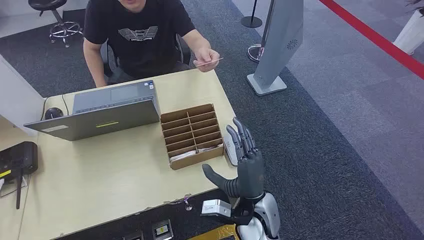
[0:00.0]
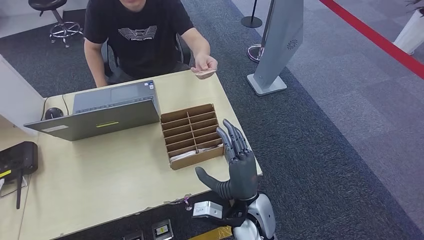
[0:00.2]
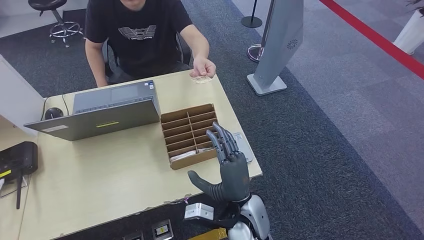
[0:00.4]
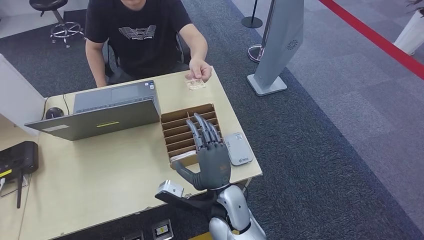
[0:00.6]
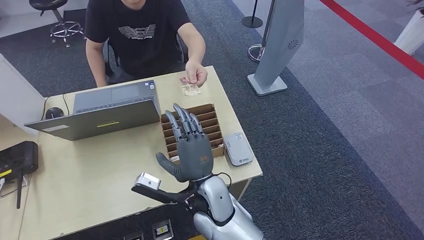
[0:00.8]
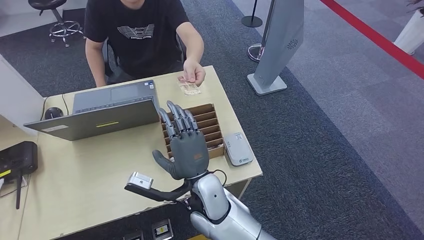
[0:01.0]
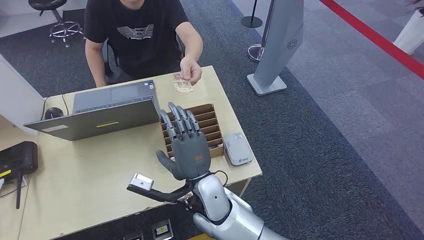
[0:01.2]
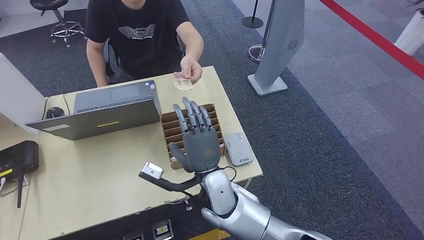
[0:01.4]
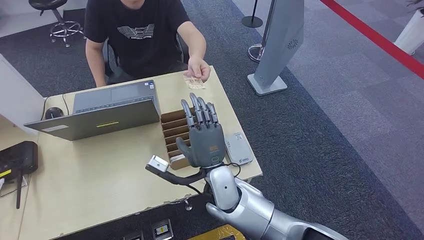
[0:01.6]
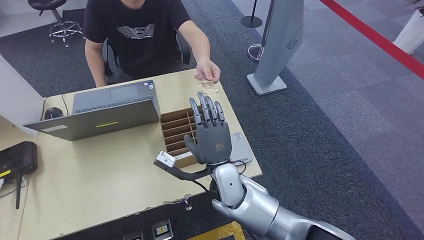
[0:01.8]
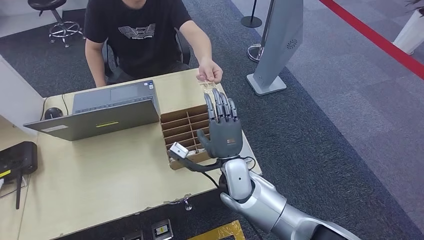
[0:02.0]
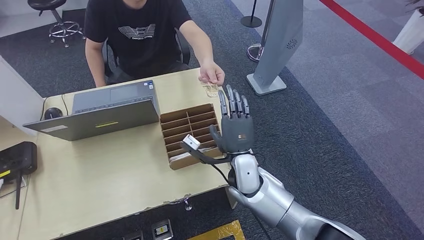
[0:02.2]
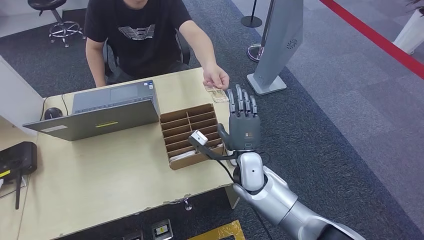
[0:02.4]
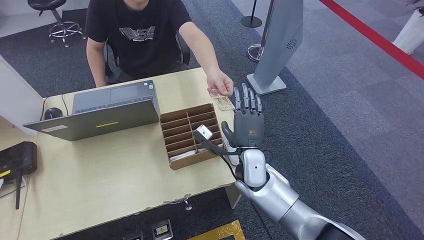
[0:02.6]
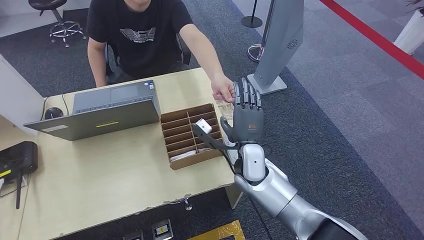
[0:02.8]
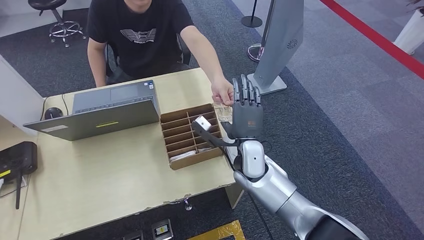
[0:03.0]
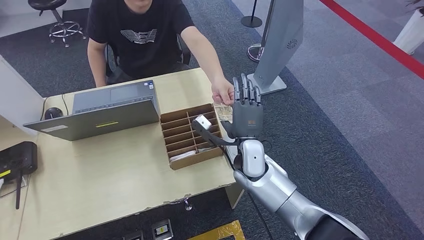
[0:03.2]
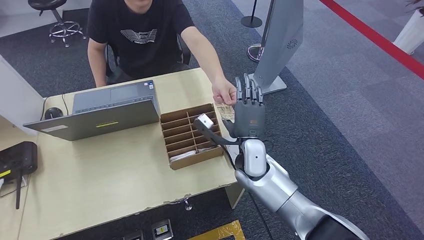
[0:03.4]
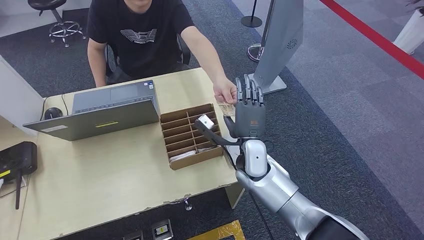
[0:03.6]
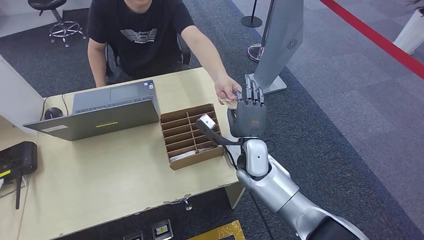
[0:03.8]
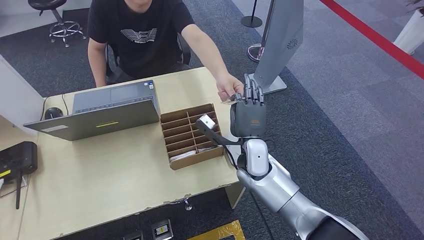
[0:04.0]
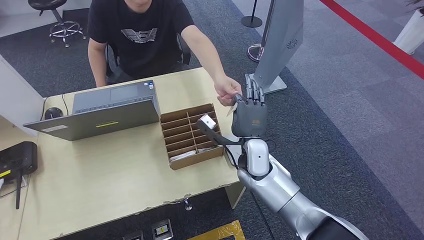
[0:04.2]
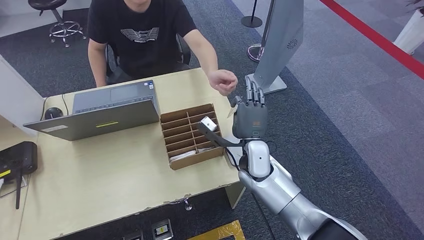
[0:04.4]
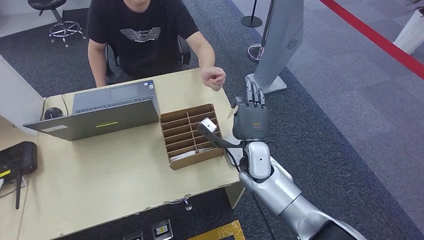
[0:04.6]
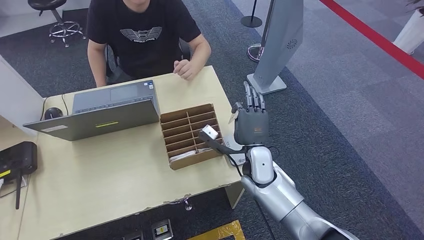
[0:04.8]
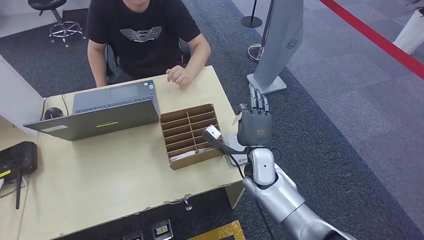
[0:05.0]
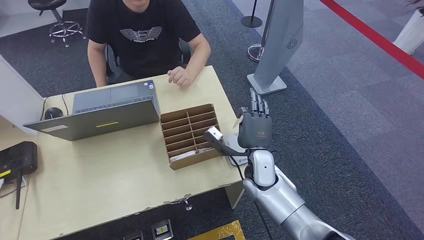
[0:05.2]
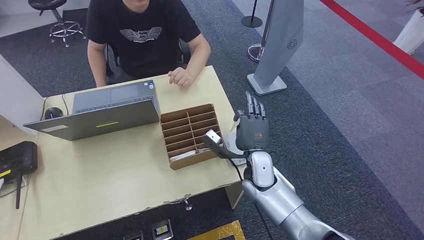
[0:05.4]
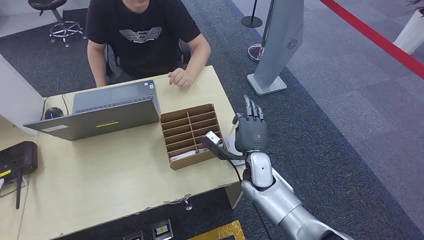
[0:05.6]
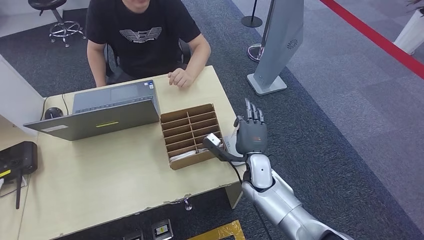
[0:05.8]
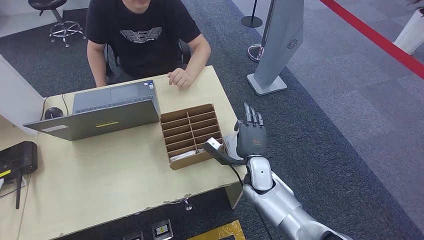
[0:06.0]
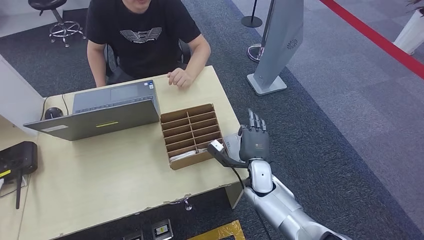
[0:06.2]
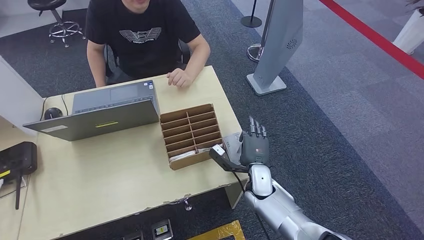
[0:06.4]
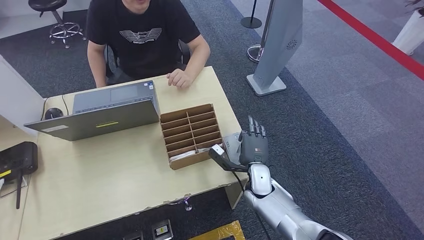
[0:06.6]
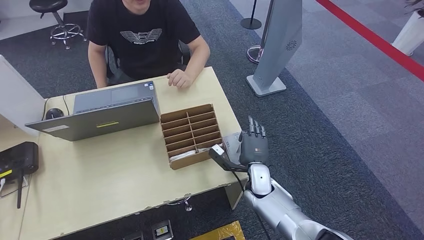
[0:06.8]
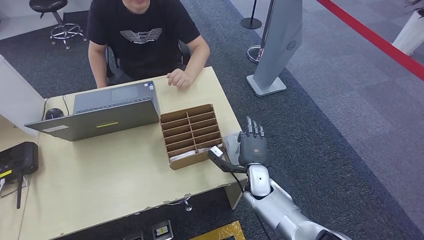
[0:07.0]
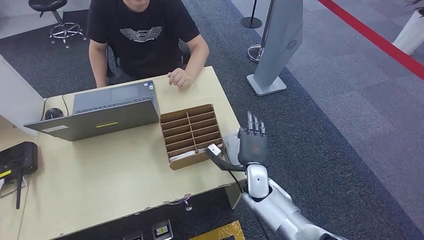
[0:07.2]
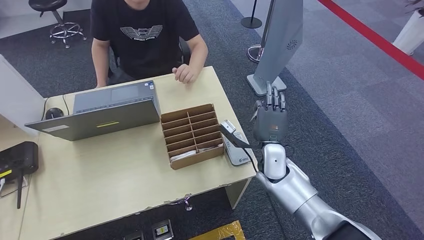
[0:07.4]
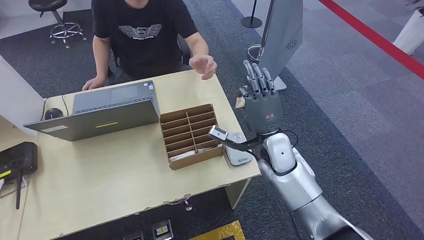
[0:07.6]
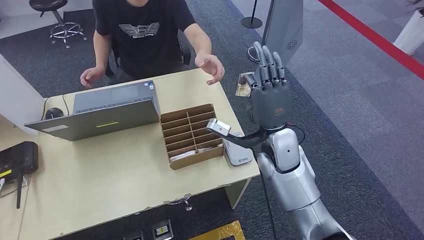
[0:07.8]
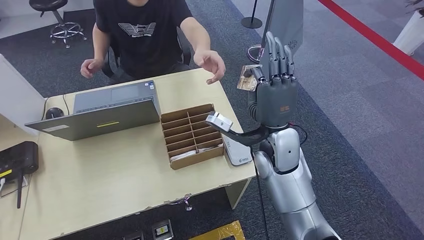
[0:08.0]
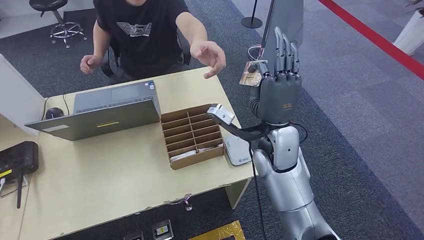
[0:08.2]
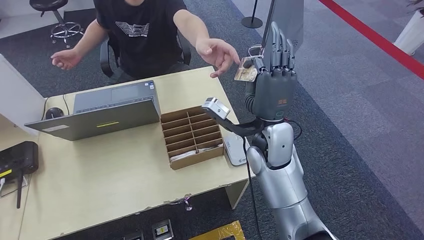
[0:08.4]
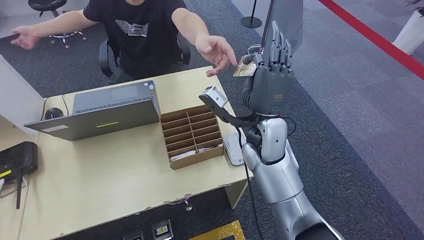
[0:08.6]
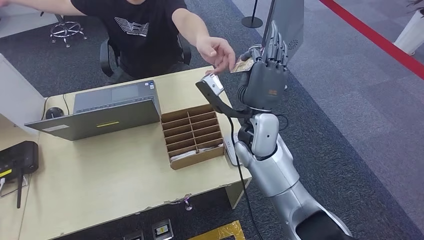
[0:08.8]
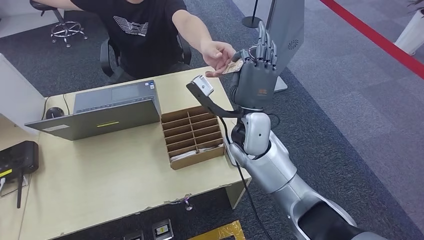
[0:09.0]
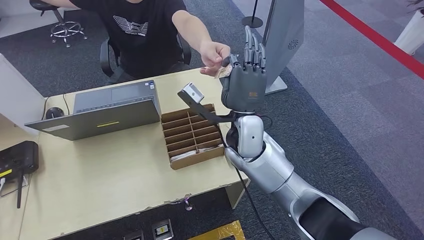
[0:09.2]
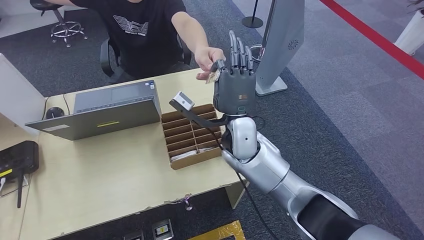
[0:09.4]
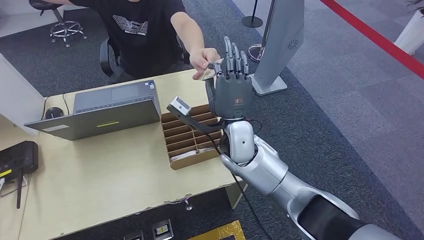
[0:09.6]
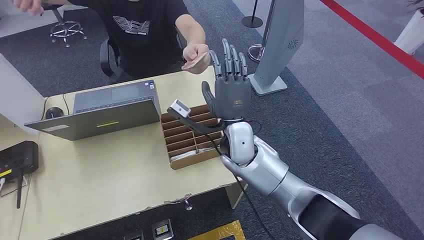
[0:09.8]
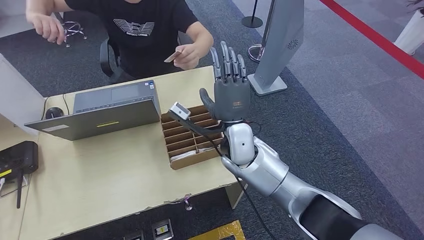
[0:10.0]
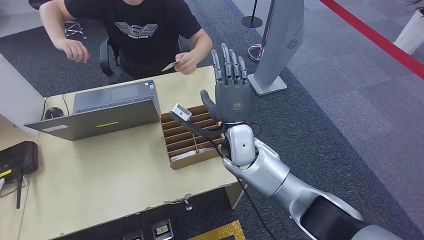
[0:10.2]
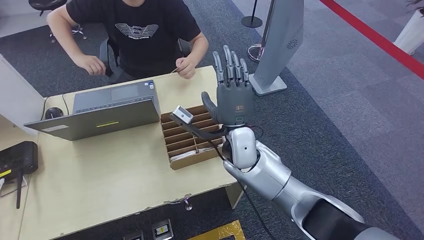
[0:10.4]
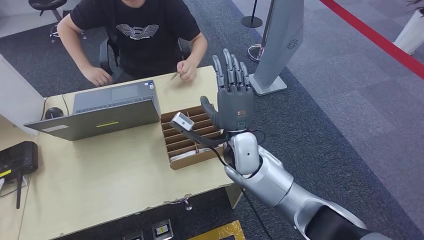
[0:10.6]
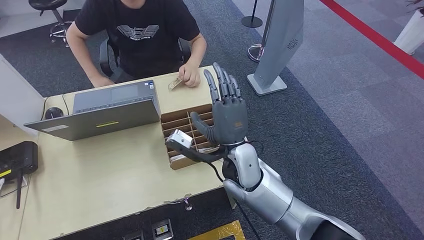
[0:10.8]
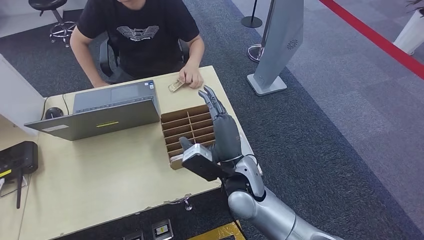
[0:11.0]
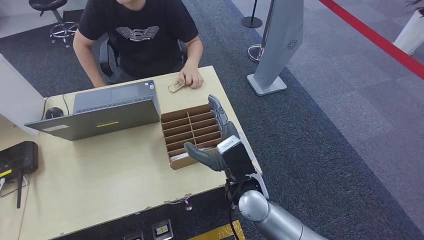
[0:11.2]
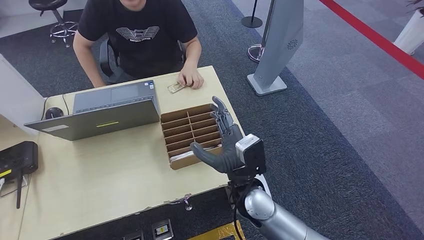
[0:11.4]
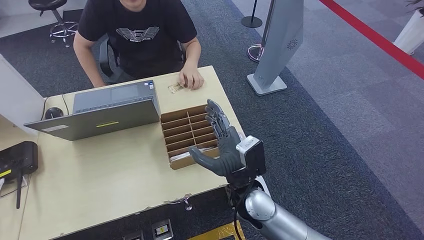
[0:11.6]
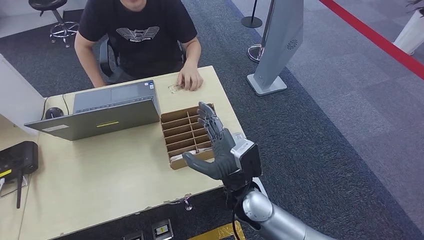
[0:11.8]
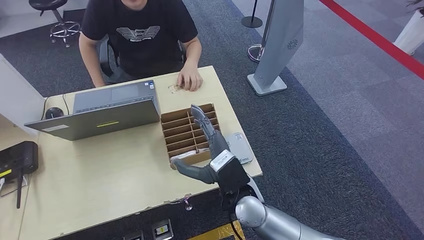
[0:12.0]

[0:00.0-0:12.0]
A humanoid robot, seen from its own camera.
Step, 0:00.0 to 0:04.4: Take the ID card from the person's hand.
Step, 0:04.6 to 0:06.4: Place the ID card on the card reader.
Step, 0:06.6 to 0:11.0: Hand the ID card to the person.
0:01.6 to 0:03.0: The right hand goes some 10 cm to the right and forward.
0:03.0 to 0:04.4: There are only small adjustments of the hands.
0:04.4 to 0:06.0: The right hand heads downward, covering some 5 cm.
0:06.0 to 0:07.6: The right hand moves upward, some 10 cm.
0:07.6 to 0:09.0: The right hand moves to the left and upward, some 10 cm.
0:09.0 to 0:10.4: The right hand shifts by roughly 5 cm.
0:10.4 to 0:12.0: The right hand goes approximately 10 cm backward.

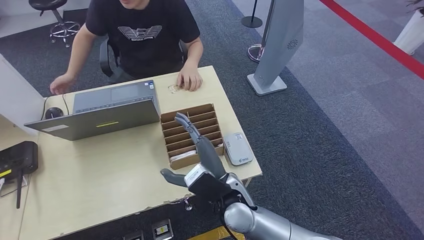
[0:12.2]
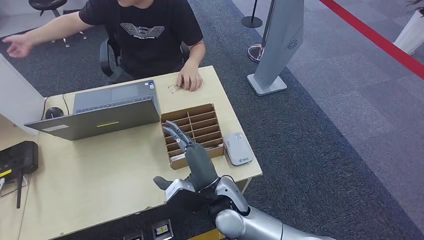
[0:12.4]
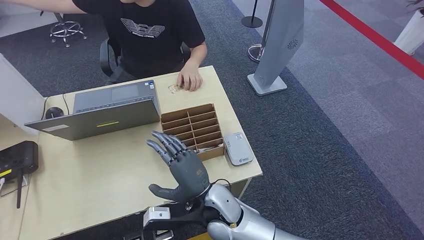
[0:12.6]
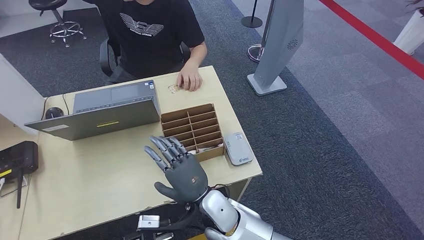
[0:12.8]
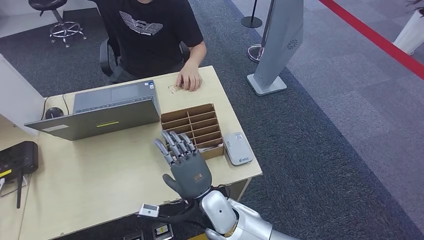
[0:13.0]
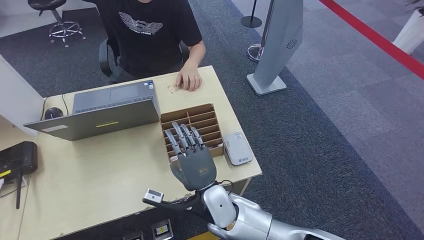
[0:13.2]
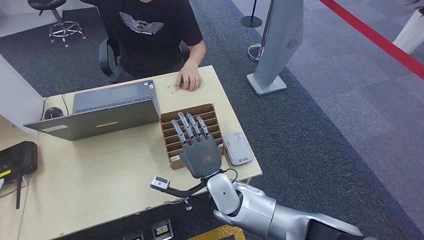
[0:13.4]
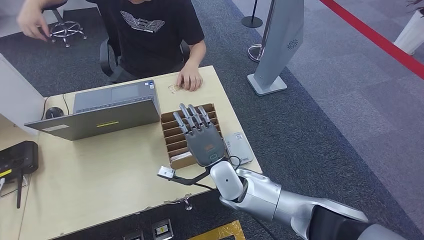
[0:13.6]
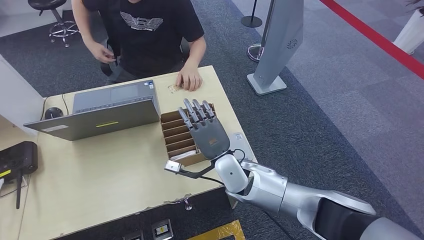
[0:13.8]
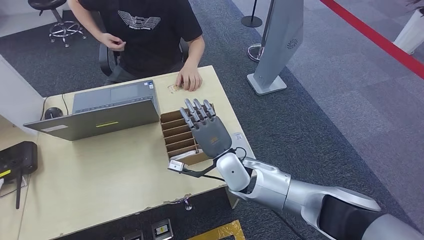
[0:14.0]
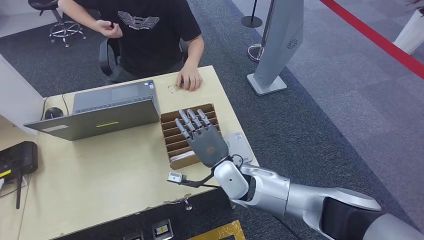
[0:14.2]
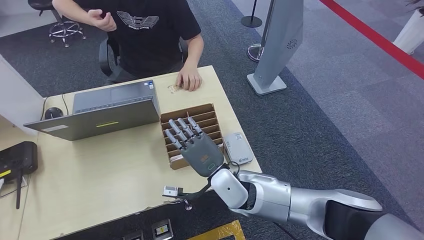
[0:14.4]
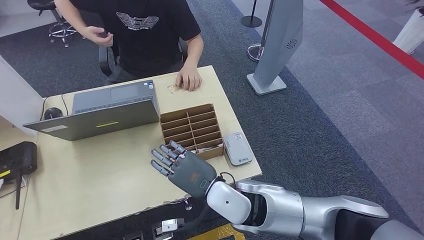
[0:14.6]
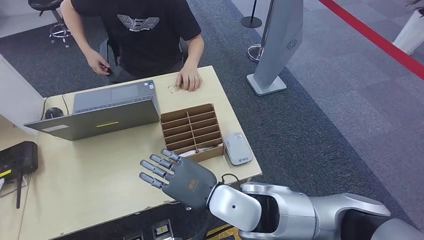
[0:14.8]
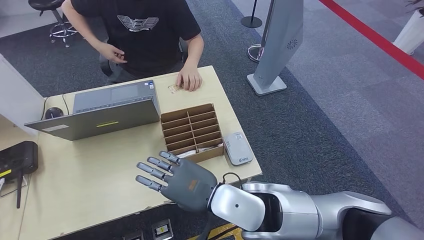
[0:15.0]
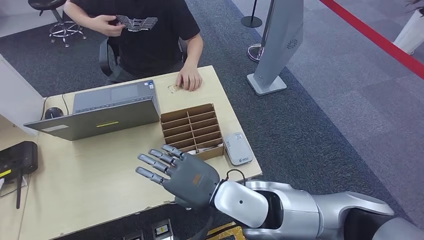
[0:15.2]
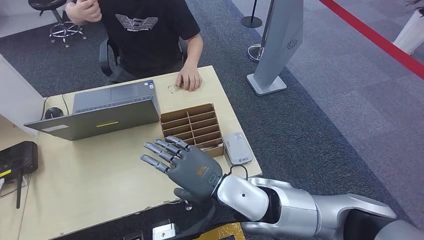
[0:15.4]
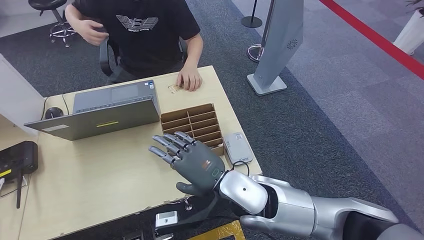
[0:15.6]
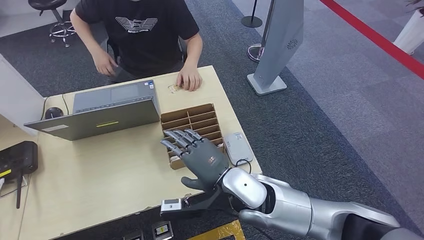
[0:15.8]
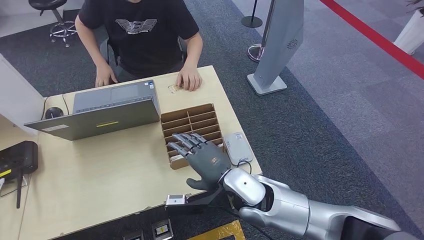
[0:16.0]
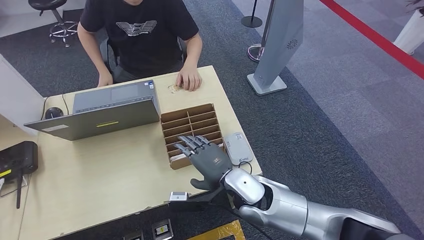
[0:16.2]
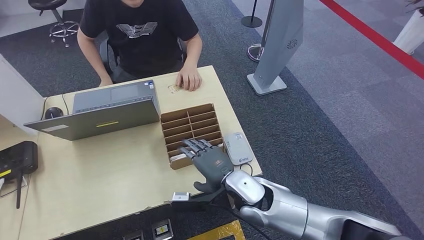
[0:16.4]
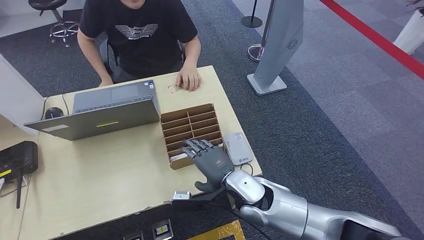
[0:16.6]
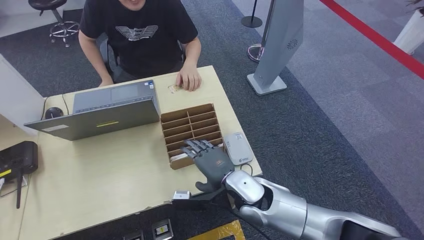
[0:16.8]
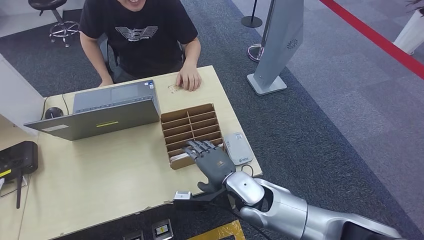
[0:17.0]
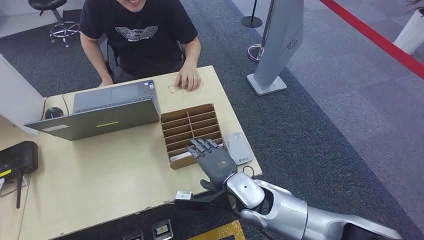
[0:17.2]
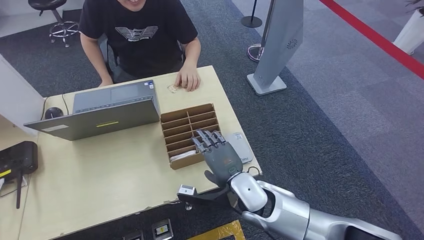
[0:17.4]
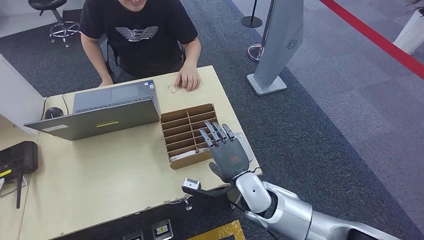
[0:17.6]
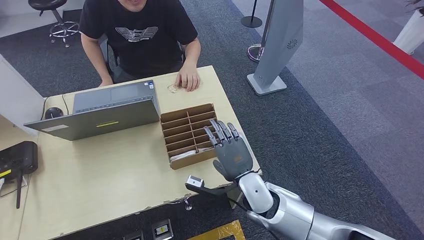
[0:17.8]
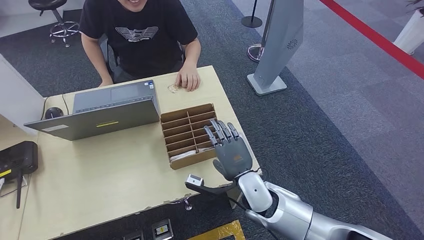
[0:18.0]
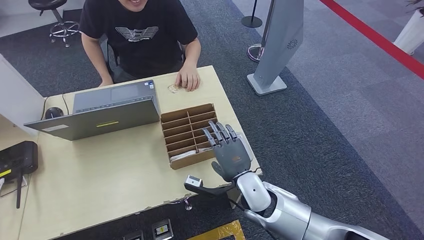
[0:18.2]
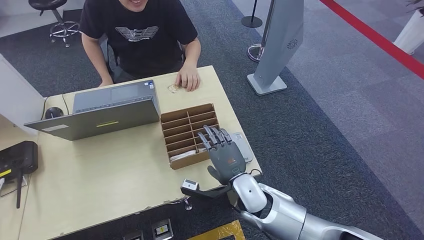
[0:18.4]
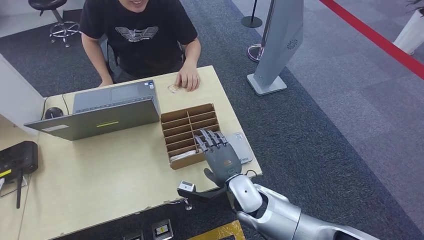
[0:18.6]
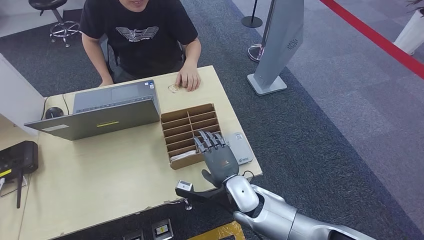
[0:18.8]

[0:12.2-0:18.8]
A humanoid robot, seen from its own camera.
0:12.2 to 0:13.8: The right hand moves forward, approximately 5 cm.
0:13.8 to 0:15.4: The right hand is displaced backward and upward by some 15 cm.
0:15.4 to 0:17.2: The right hand is displaced downward by about 10 cm.
